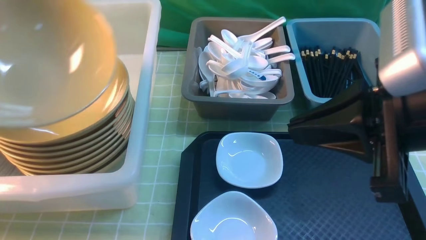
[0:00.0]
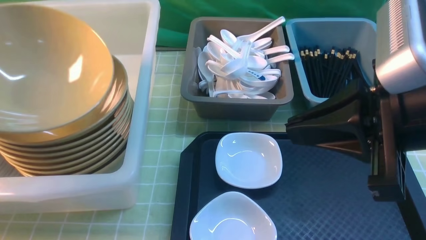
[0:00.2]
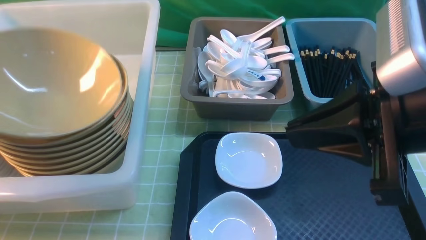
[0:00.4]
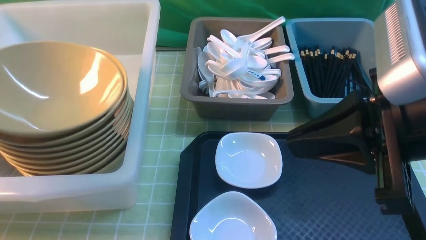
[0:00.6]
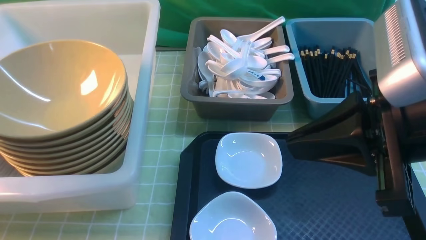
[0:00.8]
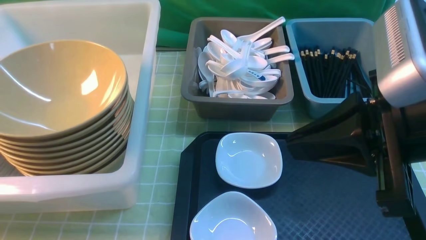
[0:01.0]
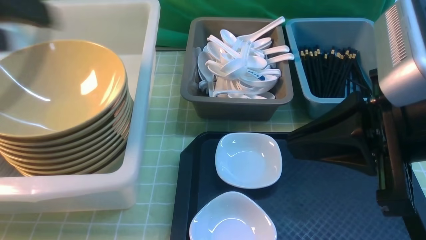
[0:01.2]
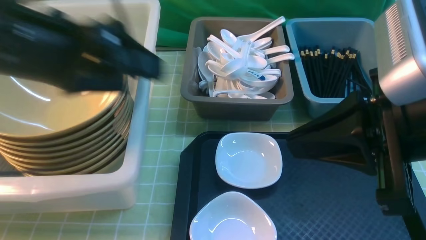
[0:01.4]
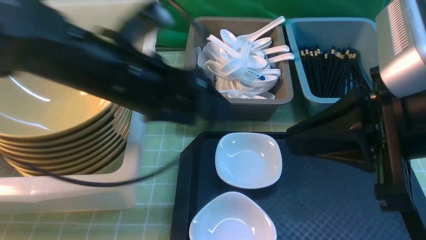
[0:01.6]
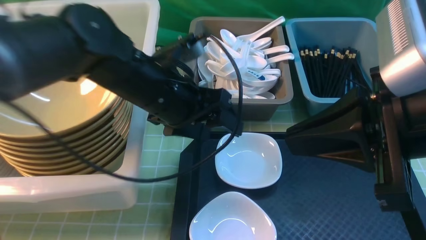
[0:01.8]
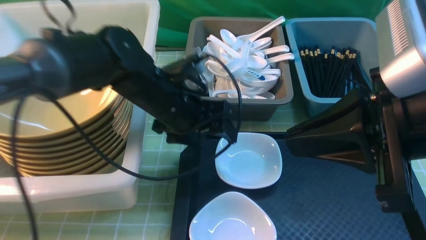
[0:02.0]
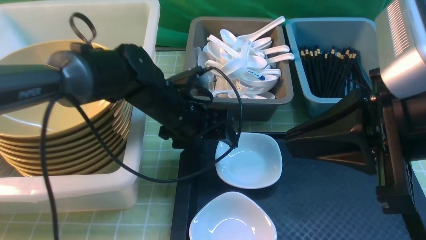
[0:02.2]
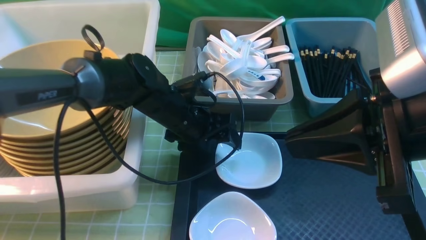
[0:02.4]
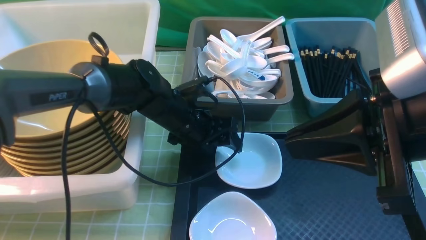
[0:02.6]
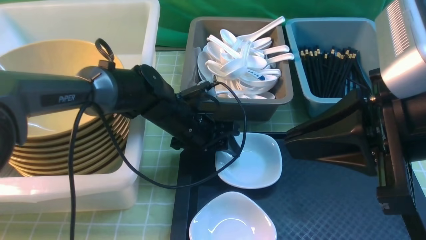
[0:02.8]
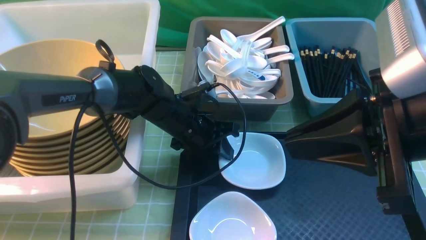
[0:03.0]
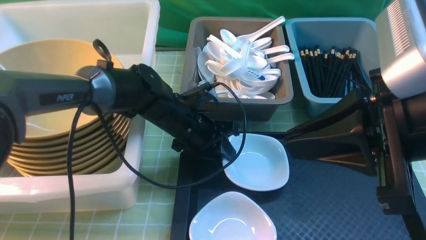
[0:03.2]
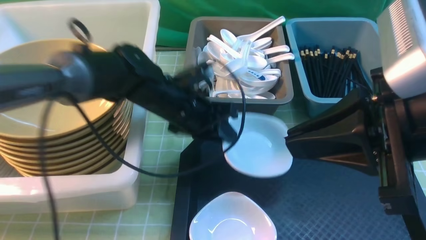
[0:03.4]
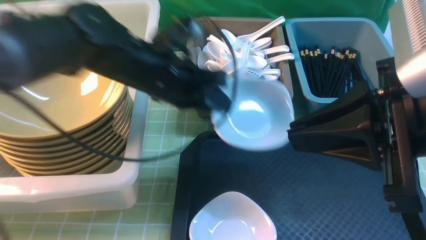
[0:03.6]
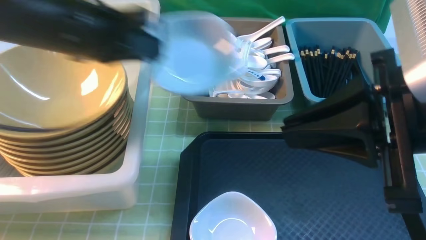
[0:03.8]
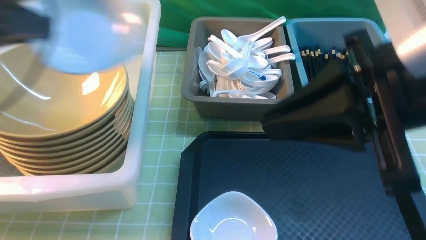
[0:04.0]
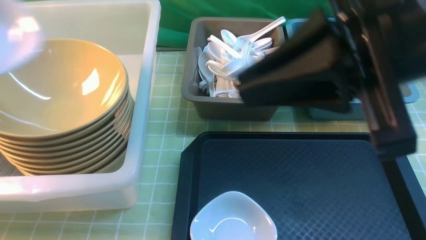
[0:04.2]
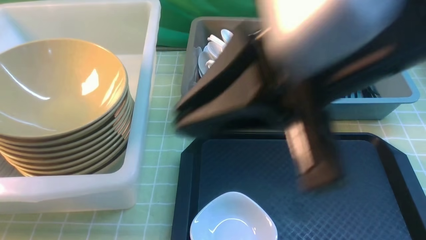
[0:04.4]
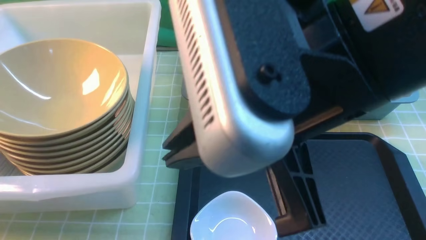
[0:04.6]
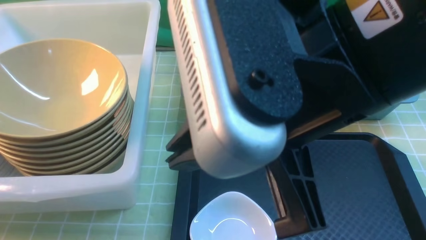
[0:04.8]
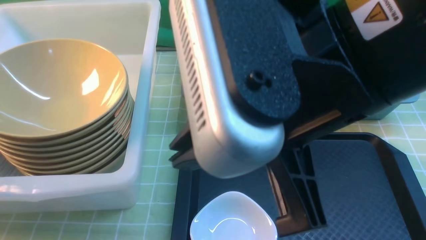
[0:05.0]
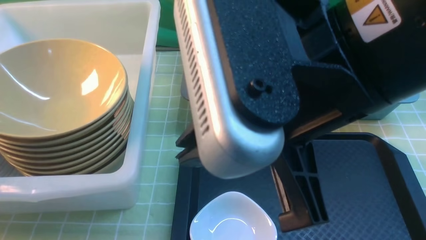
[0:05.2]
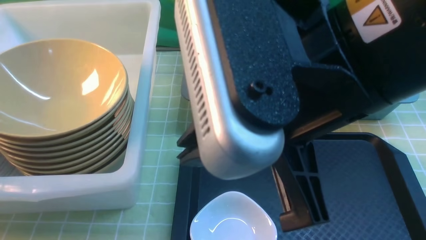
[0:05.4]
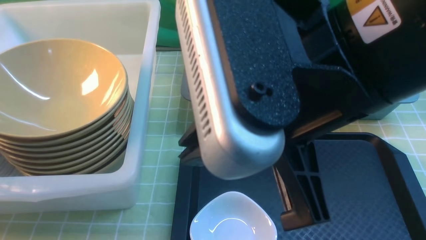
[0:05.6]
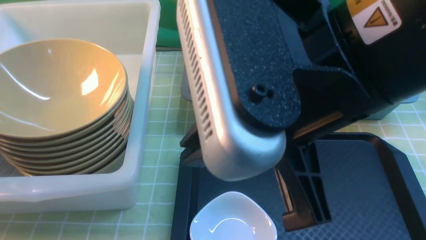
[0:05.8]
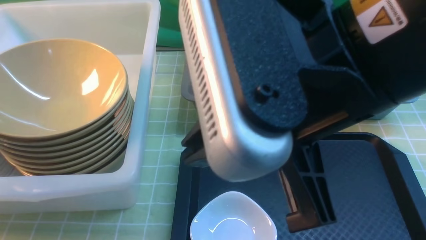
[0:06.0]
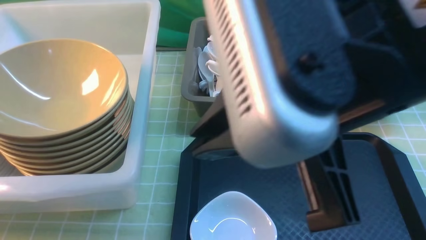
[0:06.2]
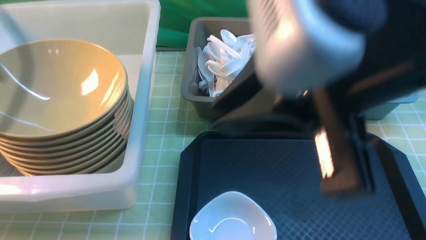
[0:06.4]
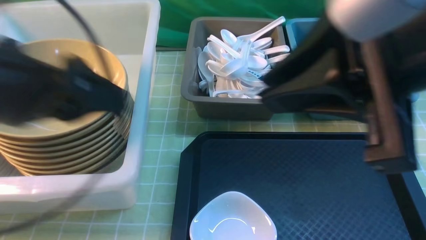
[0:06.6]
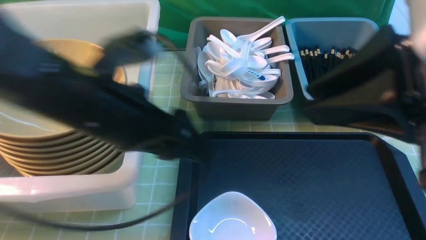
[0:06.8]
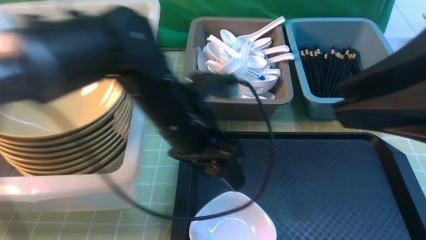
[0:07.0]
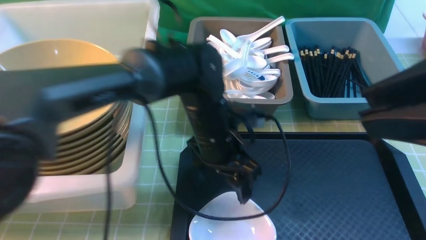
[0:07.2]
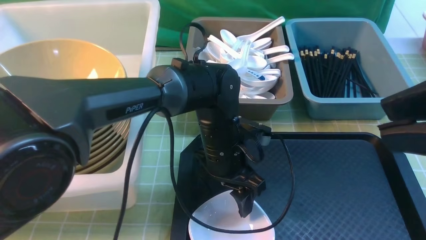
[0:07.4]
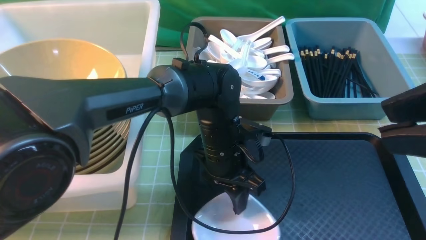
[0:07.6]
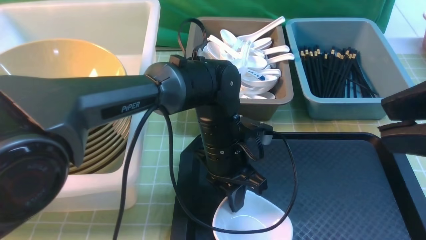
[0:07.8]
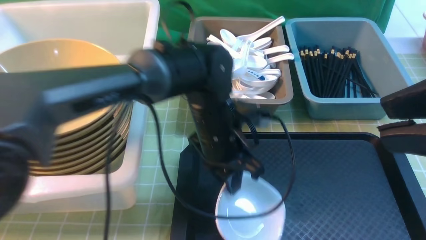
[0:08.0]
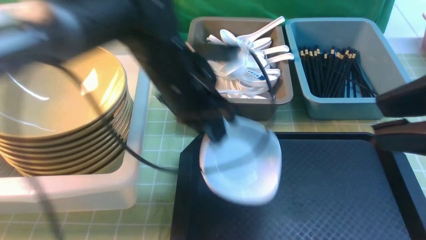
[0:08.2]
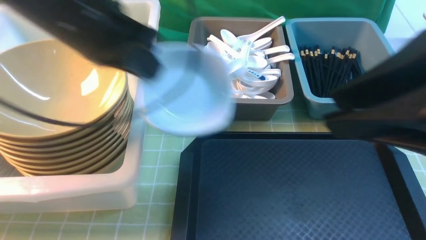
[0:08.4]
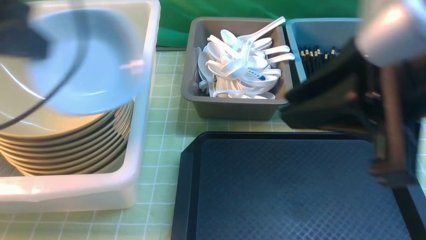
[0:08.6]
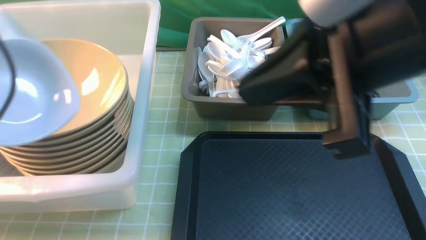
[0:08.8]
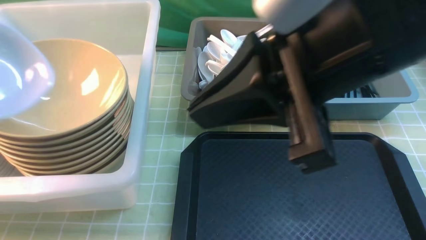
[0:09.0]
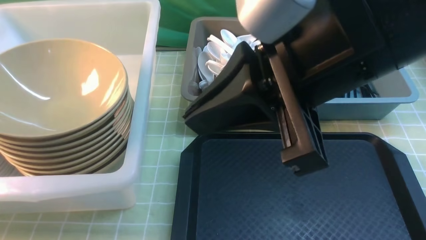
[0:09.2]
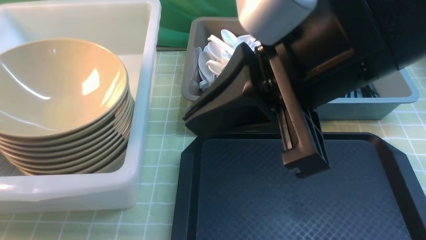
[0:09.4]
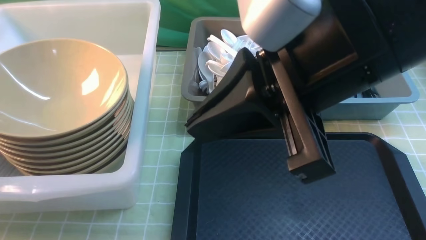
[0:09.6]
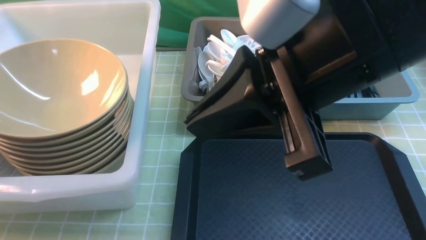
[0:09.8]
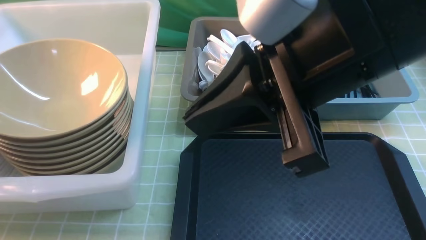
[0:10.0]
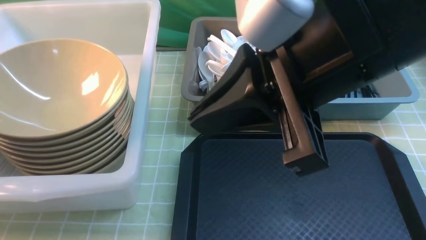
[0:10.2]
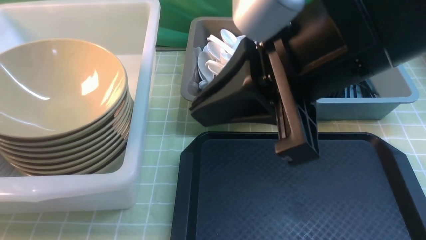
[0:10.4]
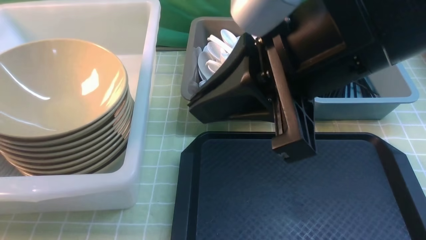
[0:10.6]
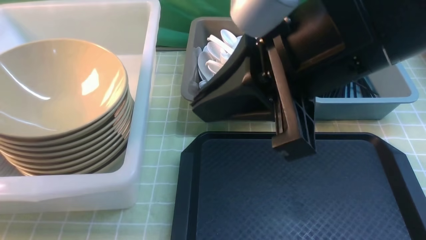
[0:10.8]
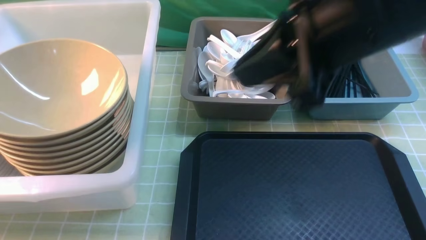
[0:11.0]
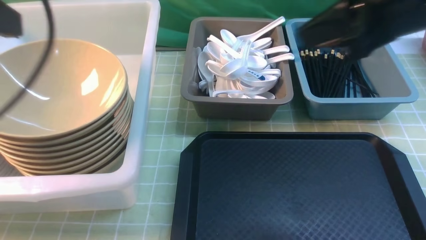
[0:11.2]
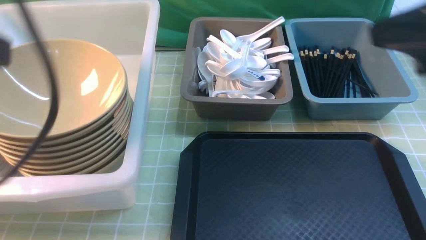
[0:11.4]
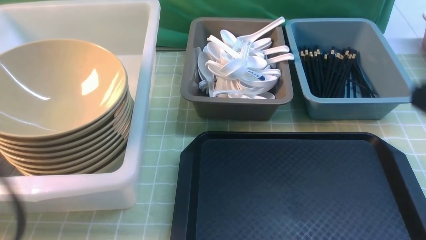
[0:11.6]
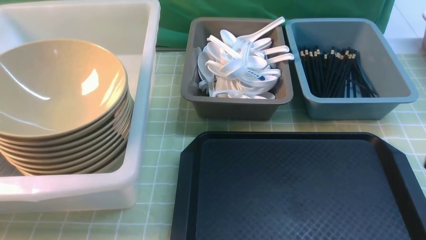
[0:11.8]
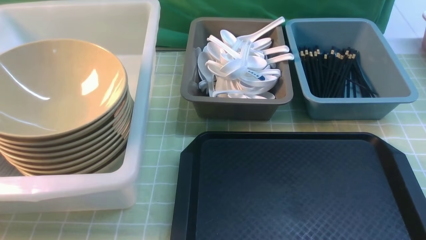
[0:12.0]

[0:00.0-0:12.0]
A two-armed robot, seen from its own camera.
Task of the whole recording: on green table put chopsticks spoon bowls plates into blue grey white boxes.
Step, 0:00.0 to 0:01.2: use the left arm to put the noodle bowl into the large storage box on the left.
Step, 0:01.4 to 0:03.2: use the left arm to grab the plate.
Step, 0:03.4 to 0:05.8: use the left arm to put the plate into the large storage box on the left.
Step, 0:06.0 to 0:08.0: use the left arm to grab the plate.
Step, 0:08.2 to 0:11.0: use the left arm to put the plate into the large storage box on the left.
0:00.0 to 0:01.6: The left gripper shifts about 25 cm to the right, and opens up.
0:01.6 to 0:03.0: The left gripper heads downward and forward, covering some 20 cm, and closes its fingers.
0:03.0 to 0:04.4: The right gripper heads to the left and upward, covering roughly 10 cm. The left gripper goes approximately 40 cm to the left, upward and backward.
0:04.4 to 0:06.0: The left gripper shifts roughly 5 cm downward, and opens its fingers.
0:06.0 to 0:07.6: The right gripper is displaced to the right and backward by roughly 15 cm. The left gripper travels to the right and downward by roughly 40 cm, and closes.
0:07.6 to 0:09.0: The left gripper heads to the left and upward, covering roughly 40 cm, and closes up. The right gripper moves to the left and forward, some 15 cm, and closes up.
0:09.0 to 0:10.4: The left gripper travels to the left, forward and downward by some 15 cm, and opens its fingers.
0:10.4 to 0:12.0: The right gripper moves to the right, downward and backward, roughly 30 cm. Meanwhile the left gripper moves backward and to the right, some 30 cm, and closes up.

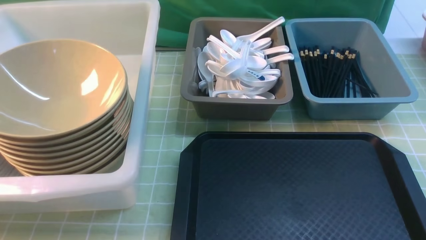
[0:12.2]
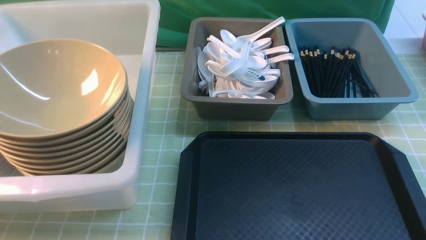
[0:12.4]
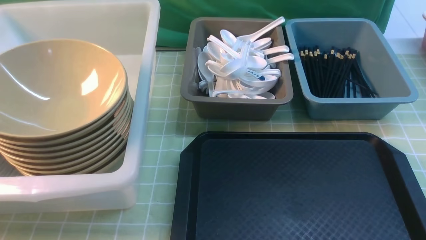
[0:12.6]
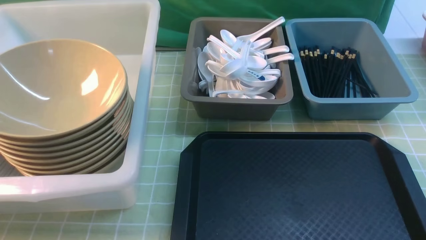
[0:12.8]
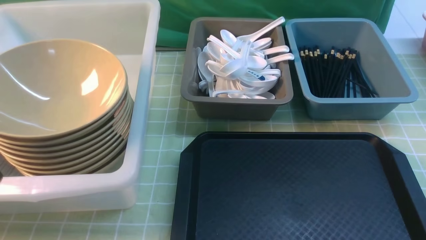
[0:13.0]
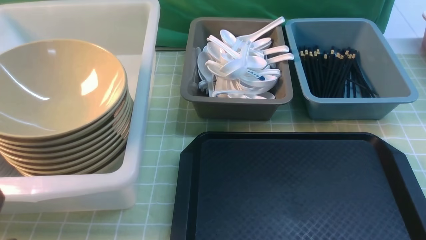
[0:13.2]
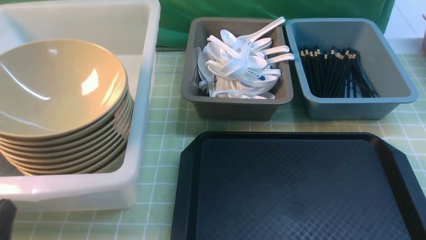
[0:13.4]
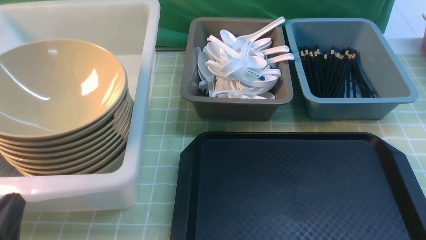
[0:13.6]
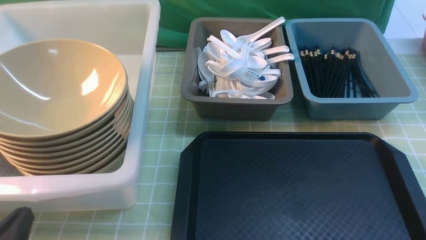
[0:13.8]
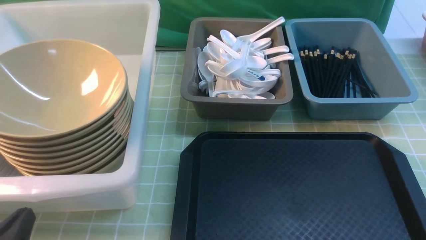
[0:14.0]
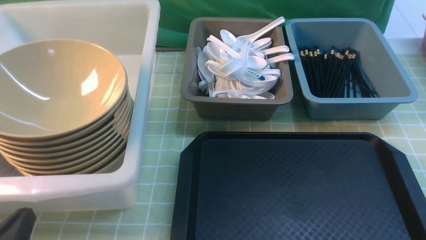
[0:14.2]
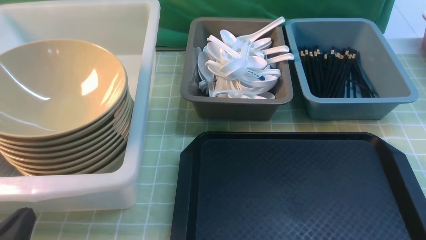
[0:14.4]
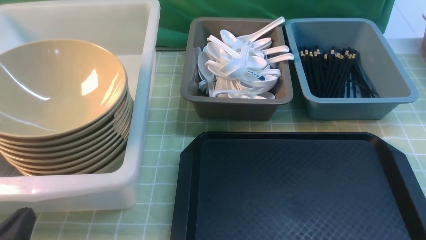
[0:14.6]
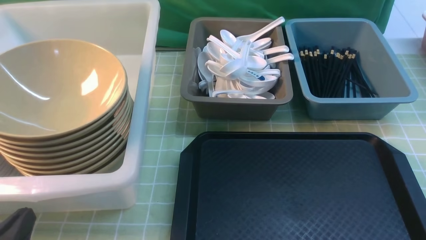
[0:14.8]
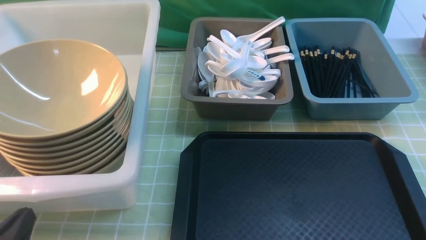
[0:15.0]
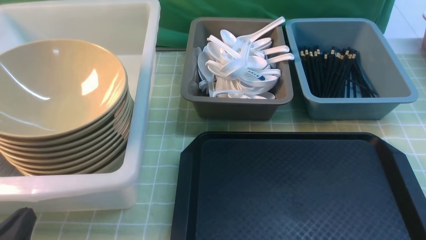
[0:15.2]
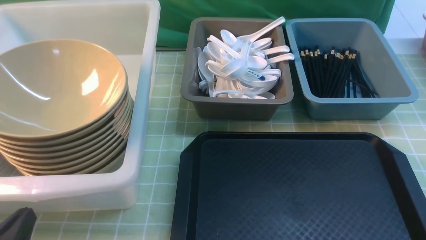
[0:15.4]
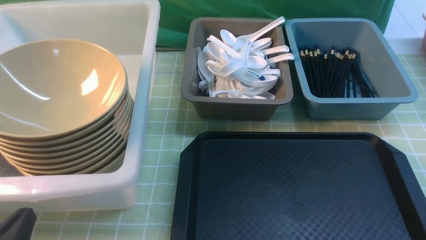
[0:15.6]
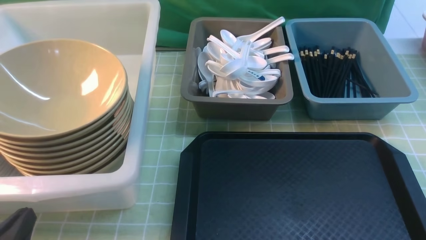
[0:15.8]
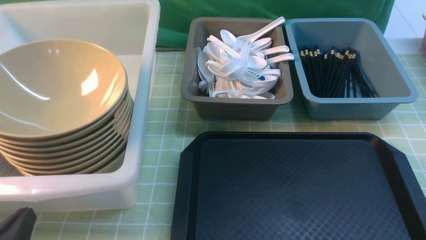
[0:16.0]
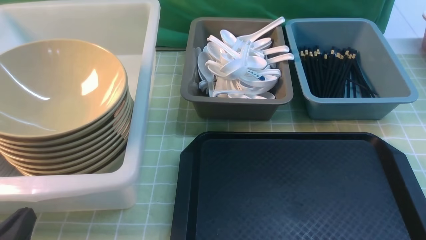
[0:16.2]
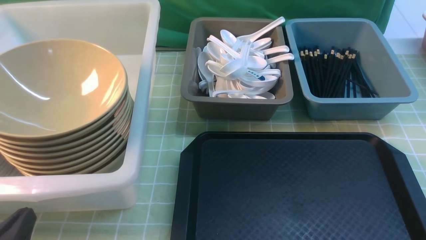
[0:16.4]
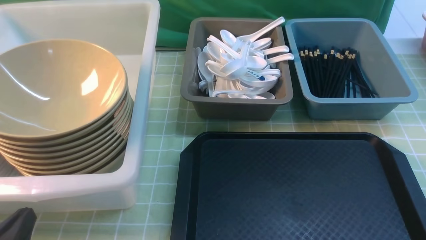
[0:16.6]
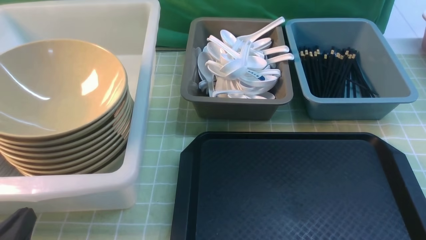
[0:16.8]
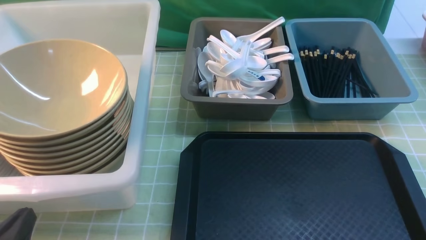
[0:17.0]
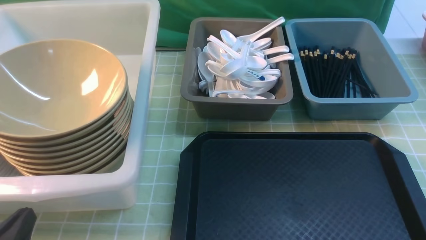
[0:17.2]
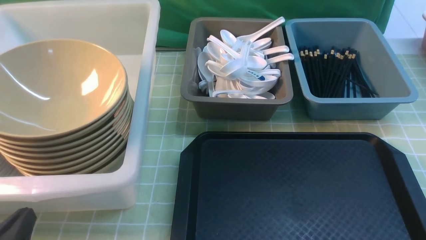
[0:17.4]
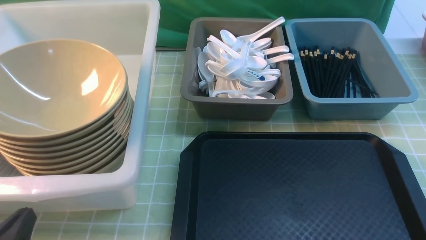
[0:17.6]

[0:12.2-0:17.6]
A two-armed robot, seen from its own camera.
Task of the whole recording: on green table put chopsticks spoon bowls plates into blue grey white boxes.
0:12.2 to 0:13.6: The left gripper moves downward, roughly 15 cm.
0:13.6 to 0:15.0: The grippers move only a little.
0:16.2 to 0:17.6: Both grippers stay put.
